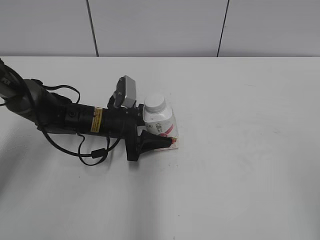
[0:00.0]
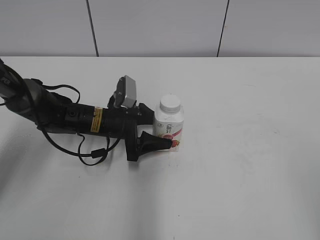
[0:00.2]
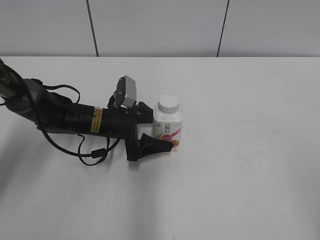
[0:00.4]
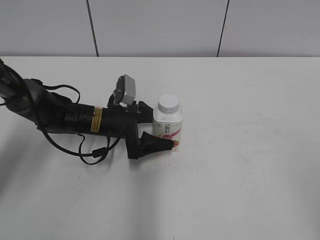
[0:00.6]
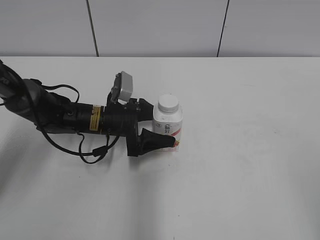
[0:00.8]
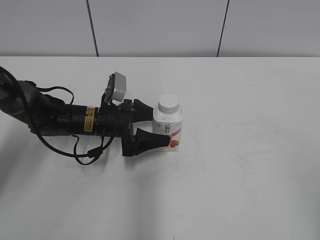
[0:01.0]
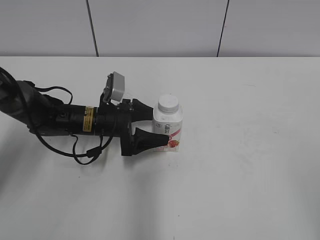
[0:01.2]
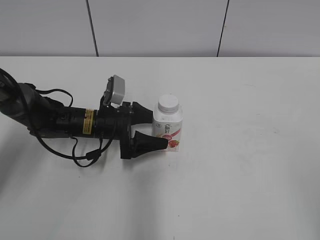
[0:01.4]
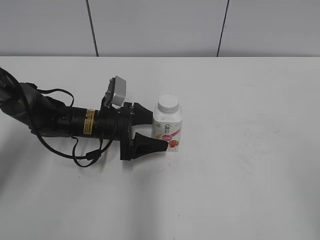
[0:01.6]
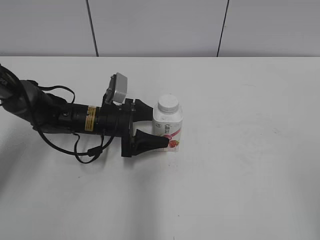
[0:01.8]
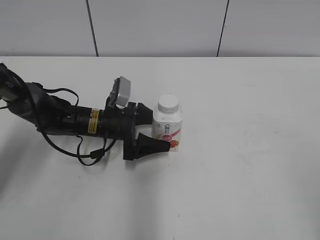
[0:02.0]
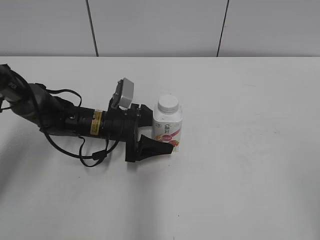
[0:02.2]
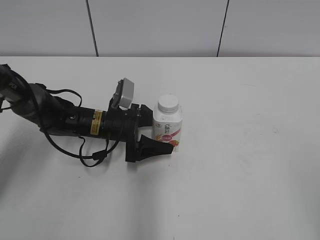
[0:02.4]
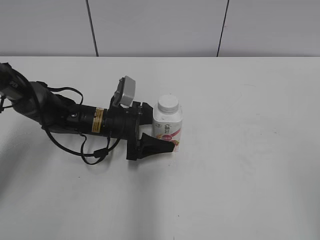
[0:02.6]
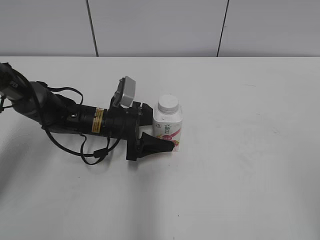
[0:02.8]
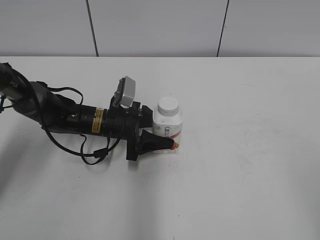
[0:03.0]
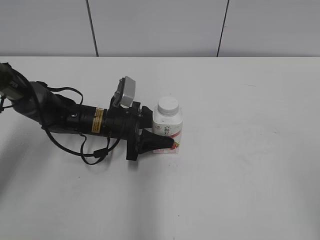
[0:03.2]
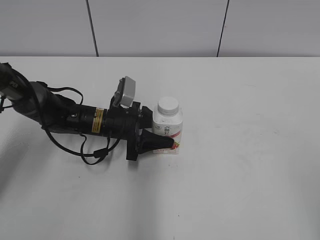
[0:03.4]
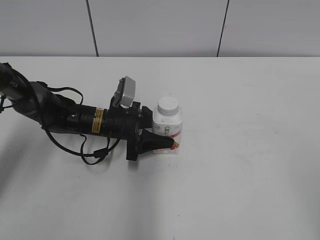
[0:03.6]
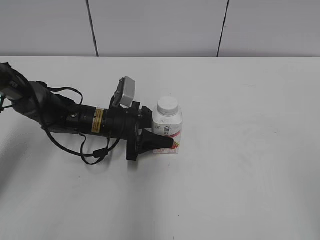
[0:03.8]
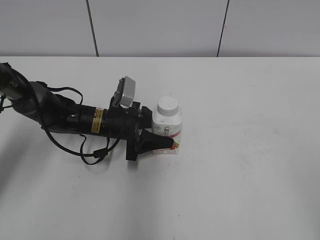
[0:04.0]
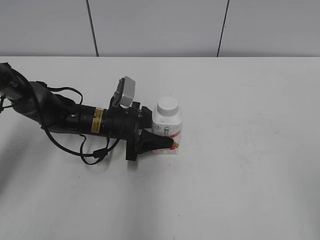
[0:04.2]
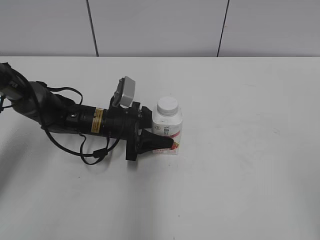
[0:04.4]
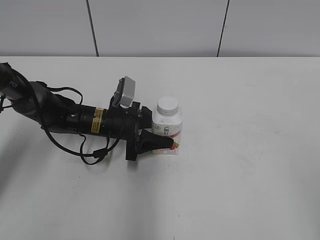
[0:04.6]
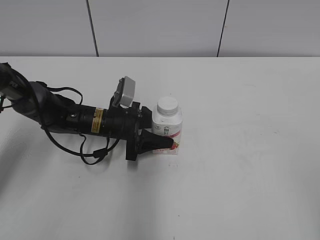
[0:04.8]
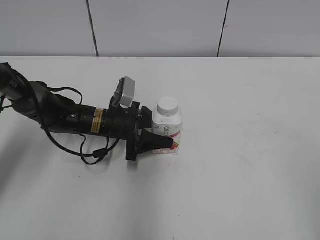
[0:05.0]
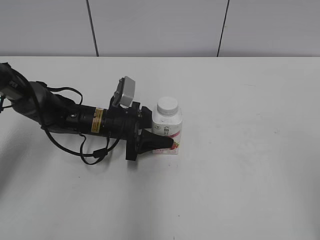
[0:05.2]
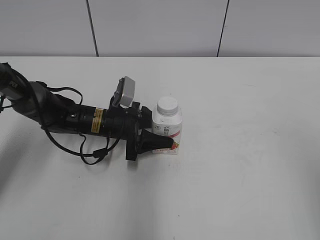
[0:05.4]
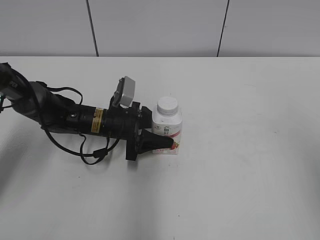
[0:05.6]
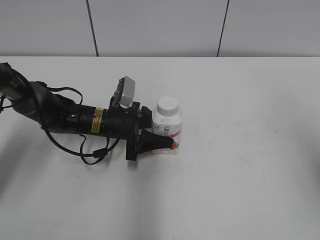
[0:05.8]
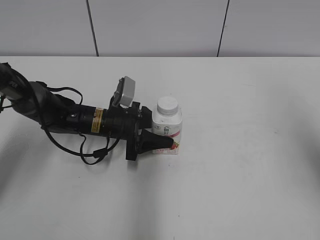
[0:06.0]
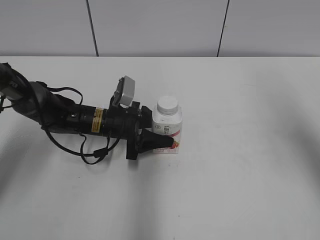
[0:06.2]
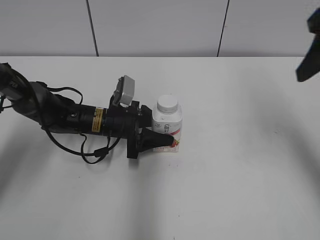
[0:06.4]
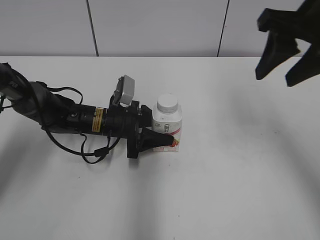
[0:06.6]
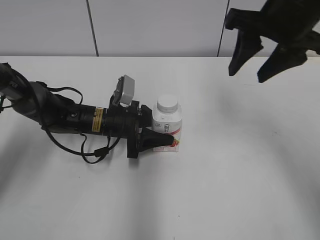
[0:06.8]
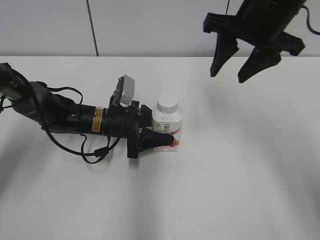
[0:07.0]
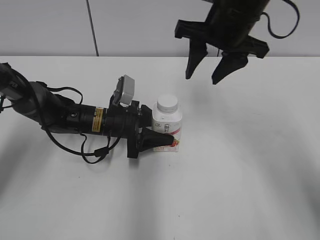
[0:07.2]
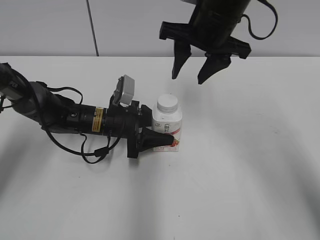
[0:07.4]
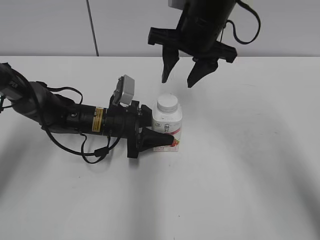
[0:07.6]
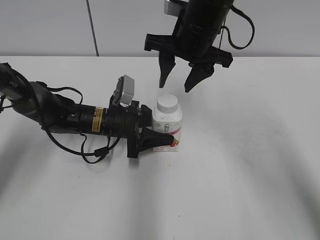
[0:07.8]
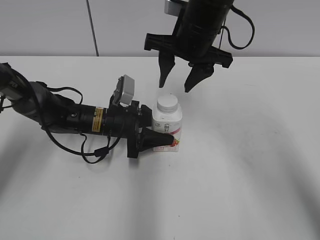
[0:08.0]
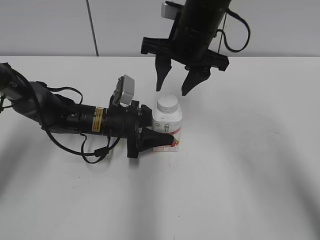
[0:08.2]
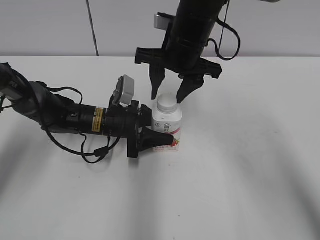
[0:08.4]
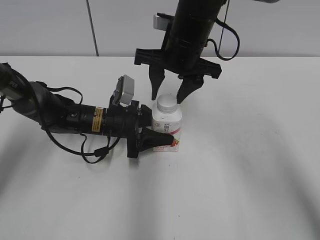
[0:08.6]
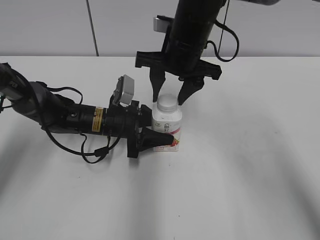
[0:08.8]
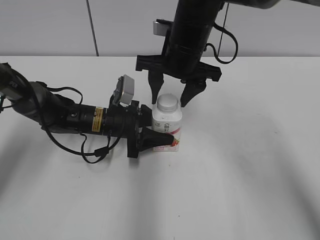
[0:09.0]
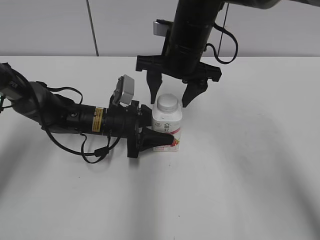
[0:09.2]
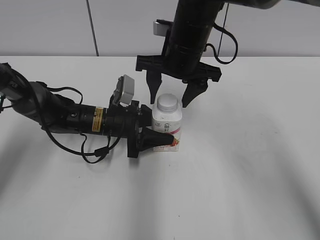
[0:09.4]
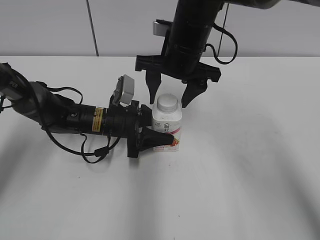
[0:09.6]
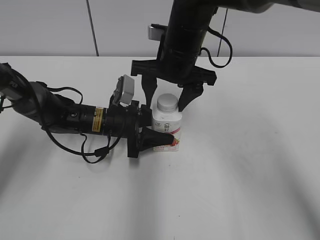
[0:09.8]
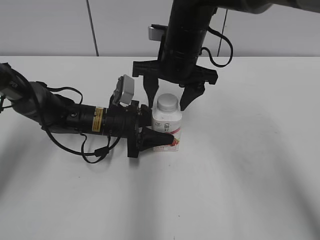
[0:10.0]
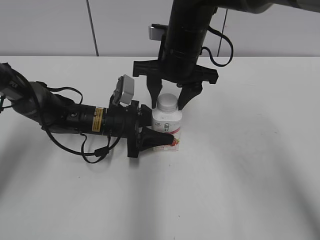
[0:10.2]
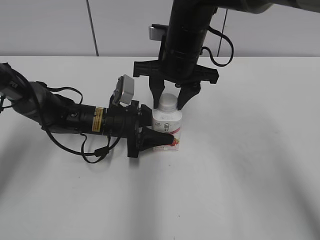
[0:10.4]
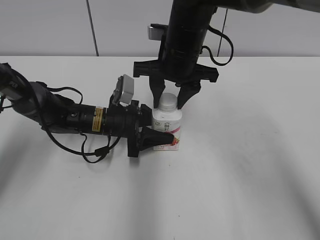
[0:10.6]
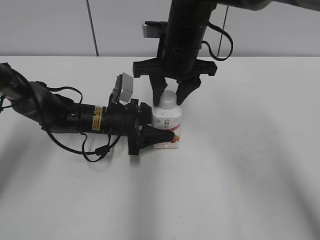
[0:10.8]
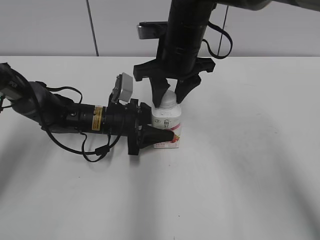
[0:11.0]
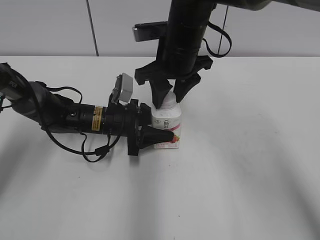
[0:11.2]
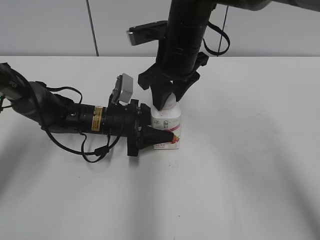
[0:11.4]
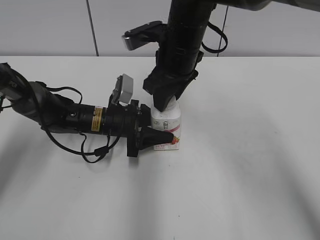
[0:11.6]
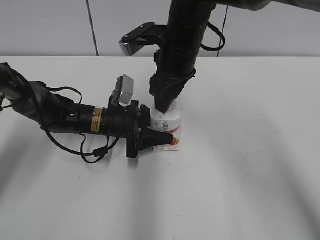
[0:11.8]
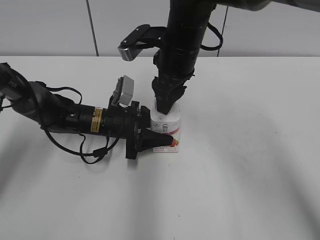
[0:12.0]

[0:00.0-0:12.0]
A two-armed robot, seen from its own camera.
Step, 0:00.0 to 0:04.6: Move the Yili Changqing from left to right.
0:00.0 to 0:01.6: The left gripper opens its fingers.
0:01.6 to 0:03.0: The left gripper closes up.
0:03.0 to 0:04.4: Both grippers stay about where they are.
0:04.4 to 0:06.0: The right gripper goes roughly 20 cm forward, and closes its fingers.
0:06.0 to 0:07.6: The right gripper is displaced to the left and forward by approximately 30 cm.
0:07.6 to 0:09.0: The grippers stay close to where they were, moving slightly.
0:09.0 to 0:10.4: The right gripper closes.

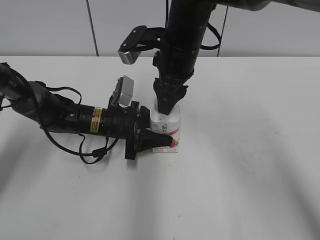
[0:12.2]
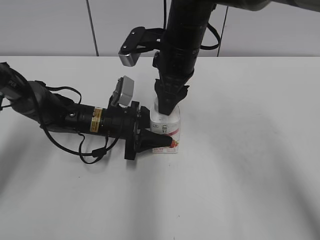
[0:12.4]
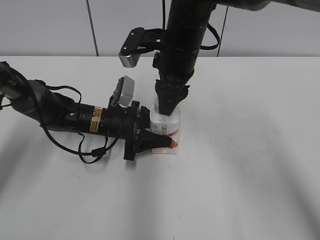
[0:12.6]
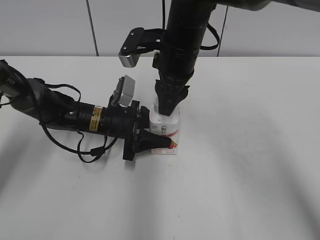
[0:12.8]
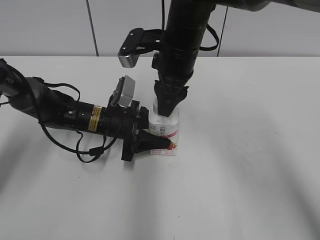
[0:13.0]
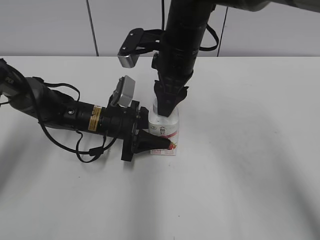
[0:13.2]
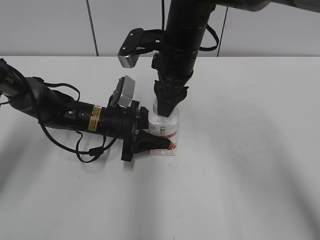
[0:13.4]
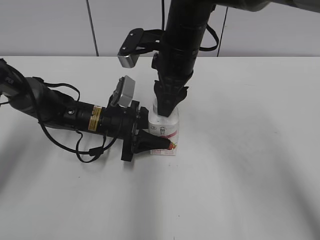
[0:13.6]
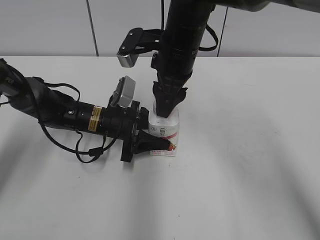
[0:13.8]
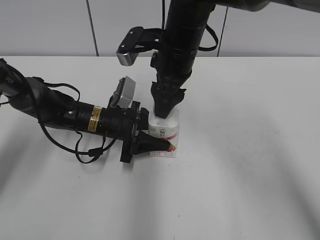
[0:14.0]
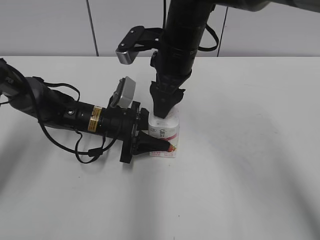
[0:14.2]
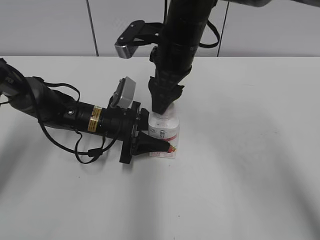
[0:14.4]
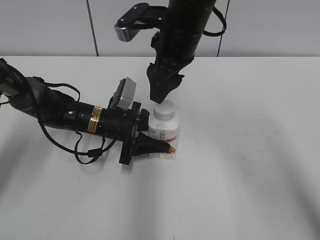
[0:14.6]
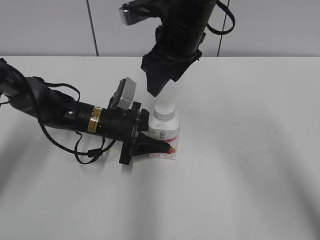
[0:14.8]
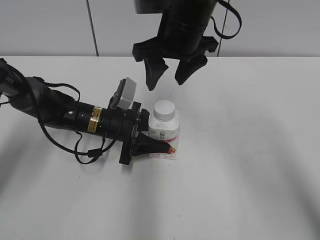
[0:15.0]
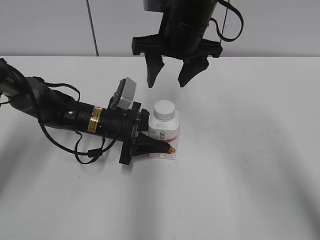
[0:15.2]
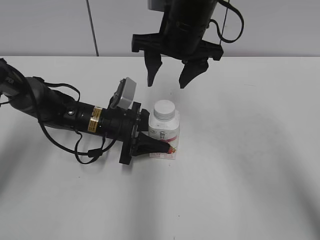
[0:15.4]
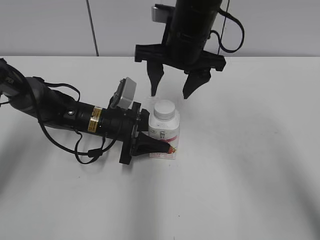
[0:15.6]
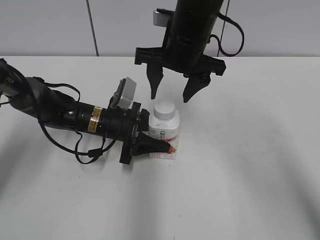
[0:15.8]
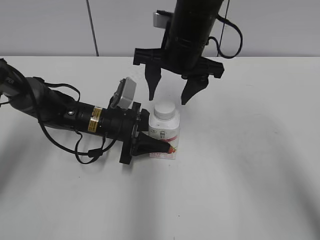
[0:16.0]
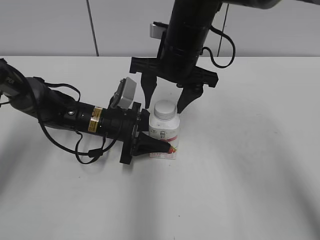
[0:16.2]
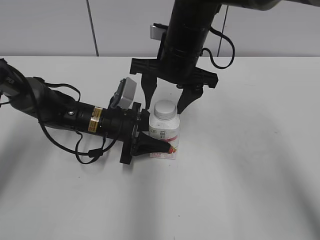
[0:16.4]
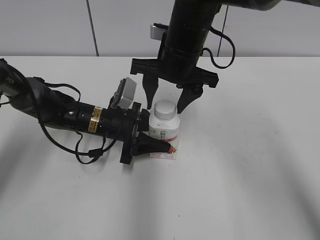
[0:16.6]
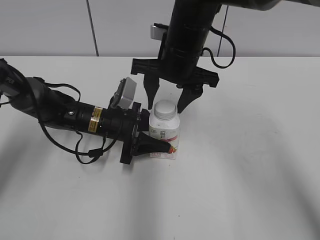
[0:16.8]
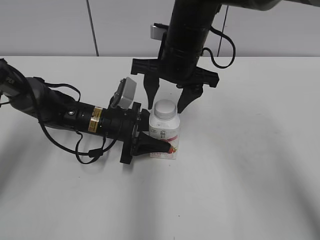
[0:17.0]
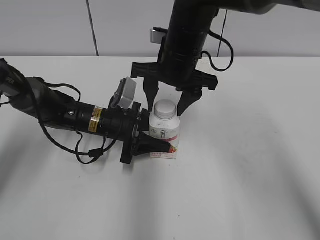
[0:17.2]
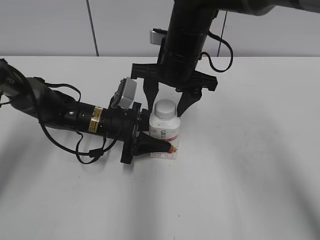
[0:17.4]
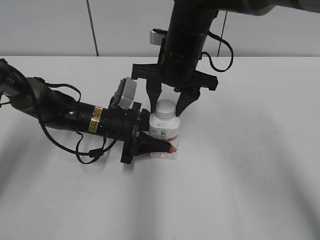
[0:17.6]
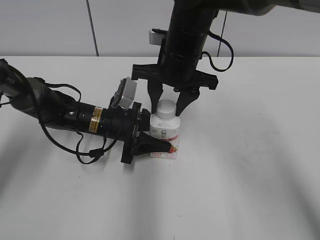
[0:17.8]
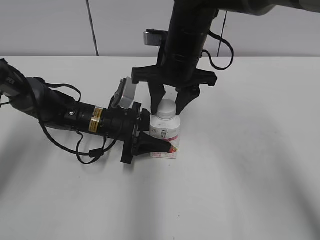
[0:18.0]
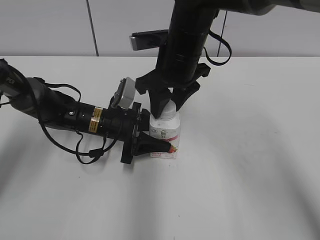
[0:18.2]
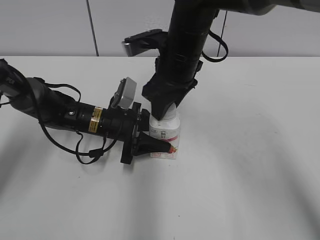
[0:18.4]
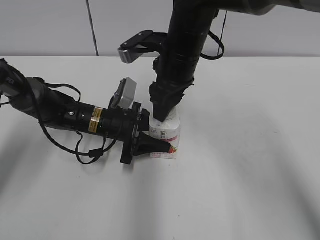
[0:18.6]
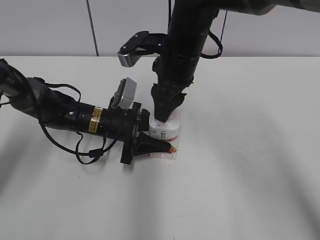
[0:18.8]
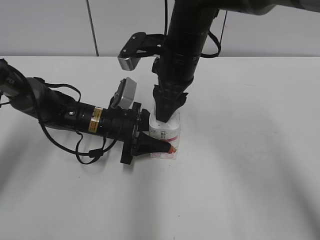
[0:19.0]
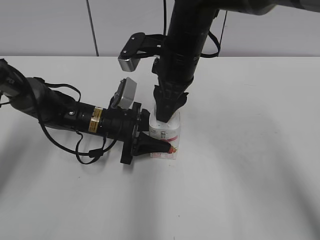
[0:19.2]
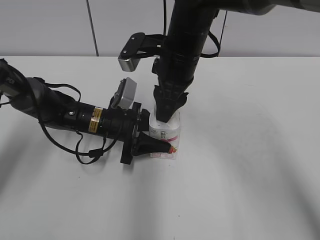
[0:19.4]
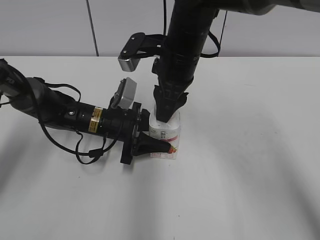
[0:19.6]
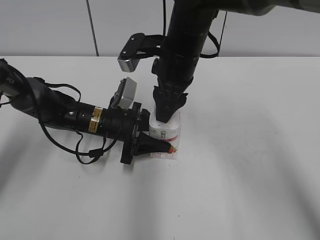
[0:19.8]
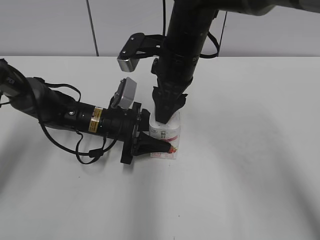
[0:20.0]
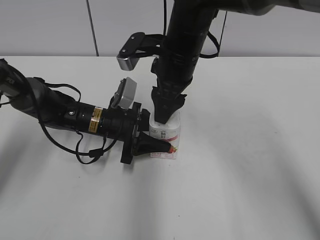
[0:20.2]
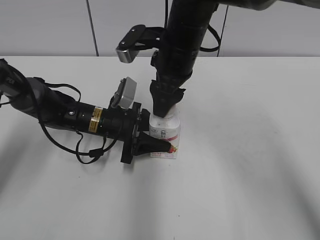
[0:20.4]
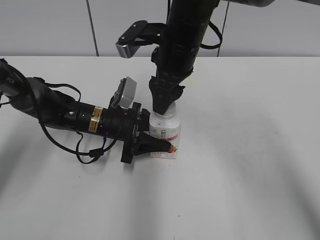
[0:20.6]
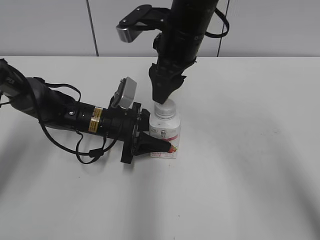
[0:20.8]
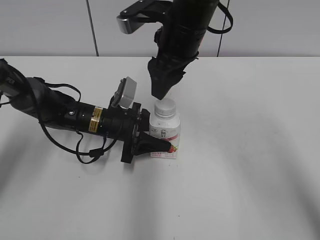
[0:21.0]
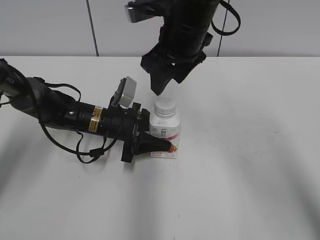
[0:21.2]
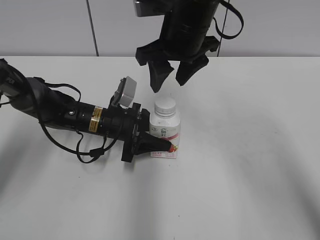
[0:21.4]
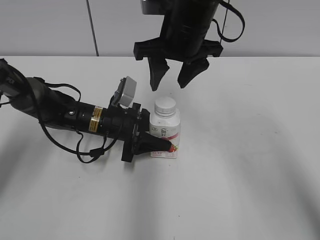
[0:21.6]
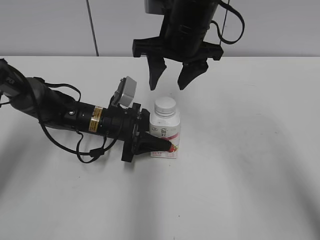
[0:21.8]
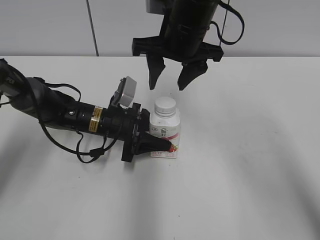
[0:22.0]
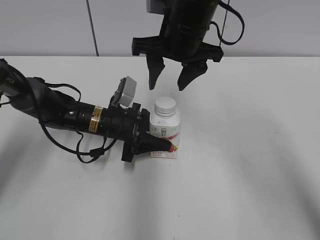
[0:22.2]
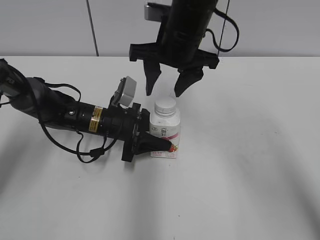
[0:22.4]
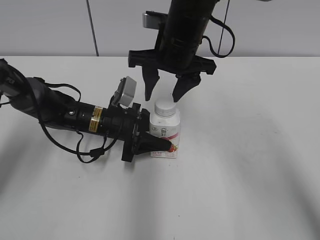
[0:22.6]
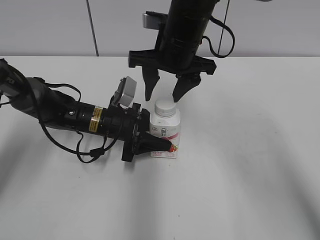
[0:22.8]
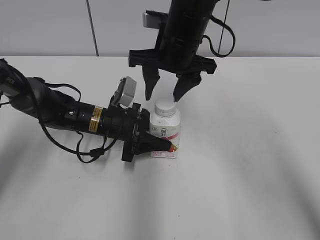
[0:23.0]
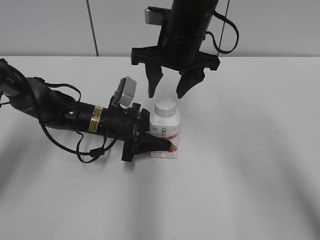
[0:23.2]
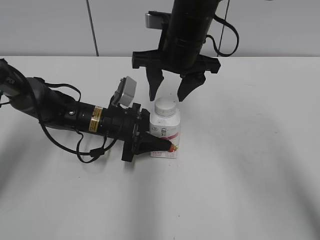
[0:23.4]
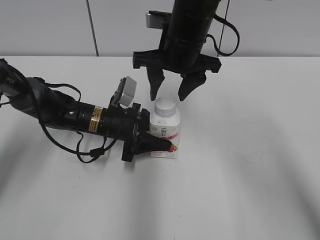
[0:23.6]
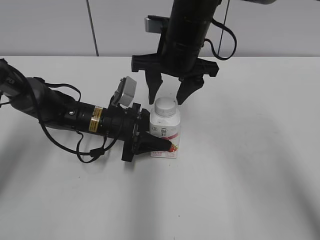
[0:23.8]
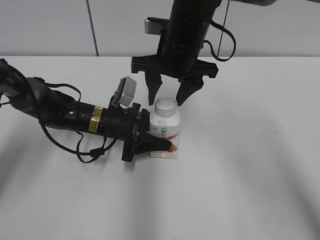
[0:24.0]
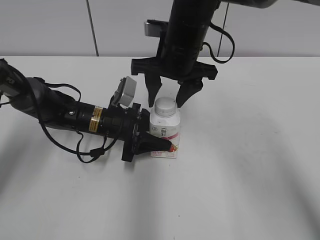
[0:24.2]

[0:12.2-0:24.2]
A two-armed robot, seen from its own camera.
0:12.2 to 0:13.8: There are only small adjustments of the grippers.
0:13.8 to 0:15.2: The right gripper opens.
0:15.2 to 0:16.6: The grippers move only a little.
0:16.6 to 0:18.2: The right gripper closes.
0:19.8 to 0:21.2: The right gripper opens up.
0:22.6 to 0:24.2: Both grippers stay about where they are.
